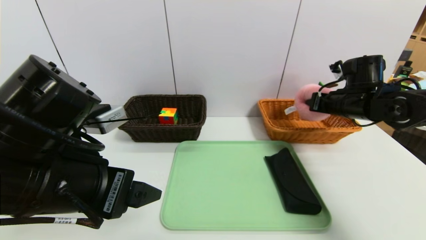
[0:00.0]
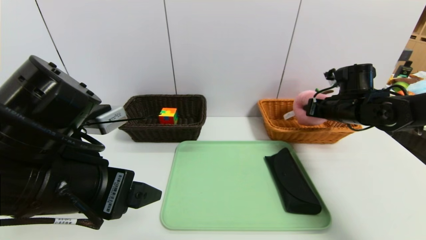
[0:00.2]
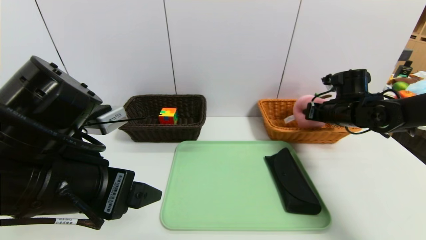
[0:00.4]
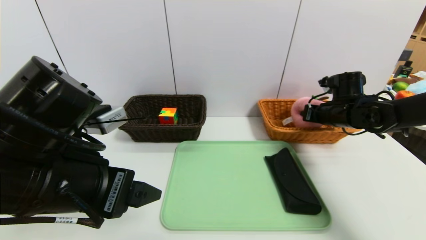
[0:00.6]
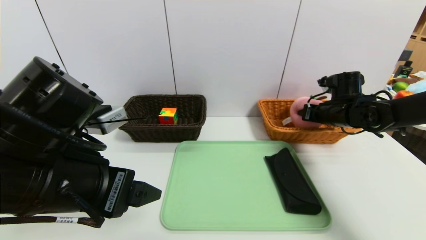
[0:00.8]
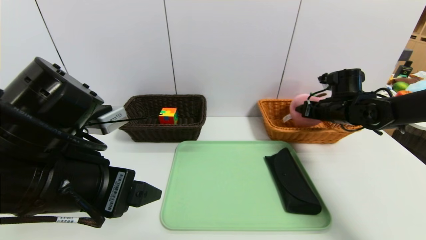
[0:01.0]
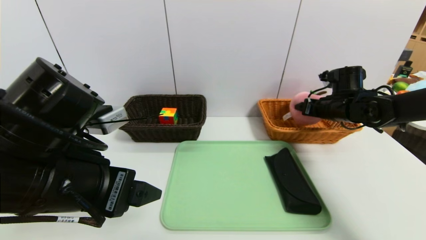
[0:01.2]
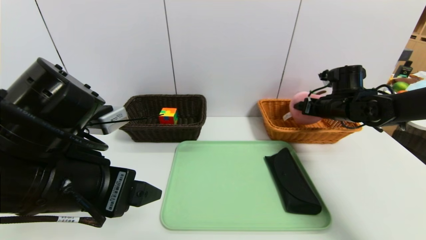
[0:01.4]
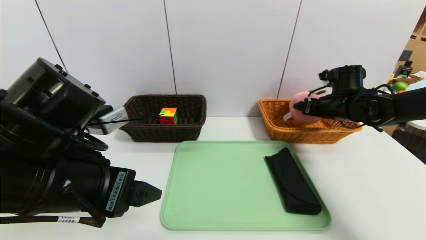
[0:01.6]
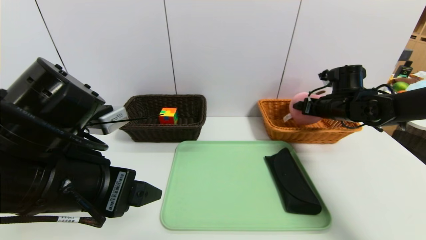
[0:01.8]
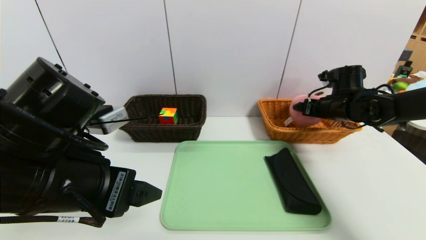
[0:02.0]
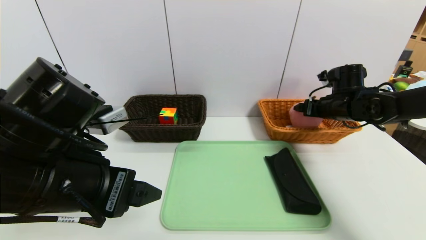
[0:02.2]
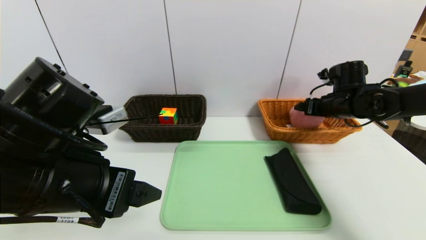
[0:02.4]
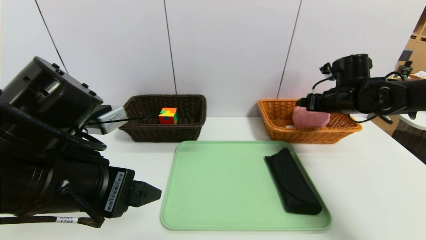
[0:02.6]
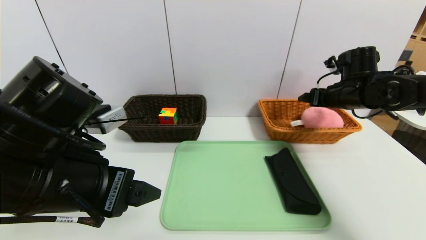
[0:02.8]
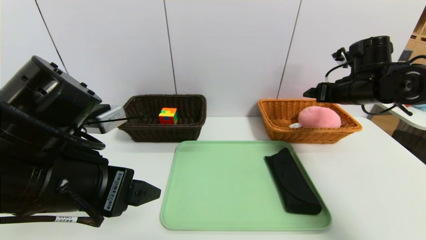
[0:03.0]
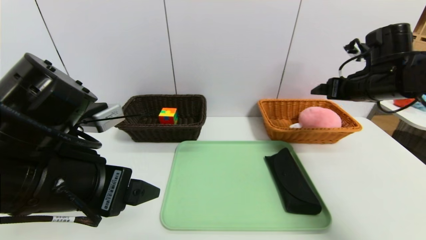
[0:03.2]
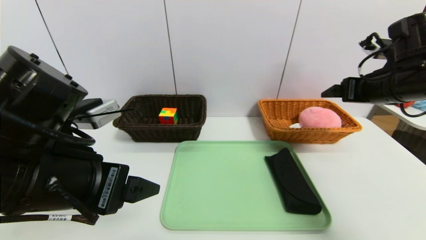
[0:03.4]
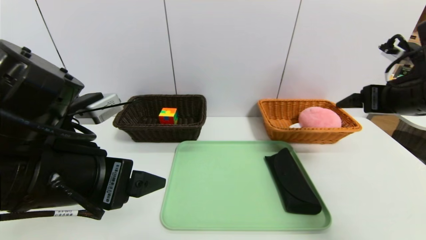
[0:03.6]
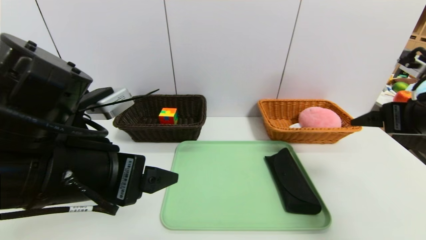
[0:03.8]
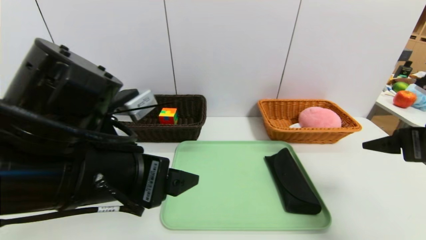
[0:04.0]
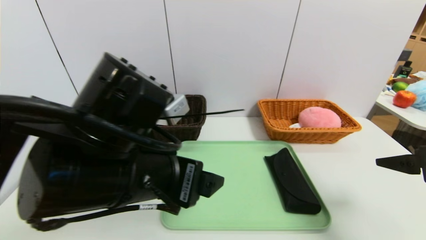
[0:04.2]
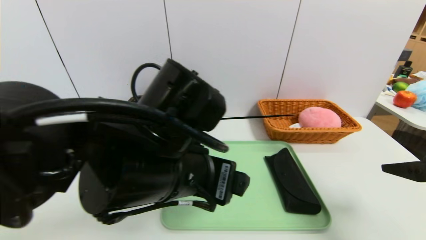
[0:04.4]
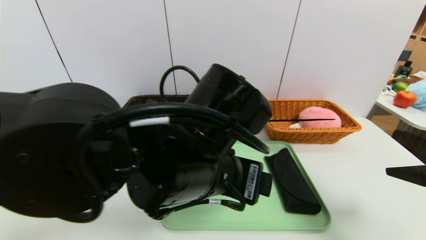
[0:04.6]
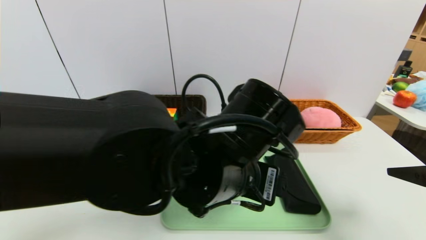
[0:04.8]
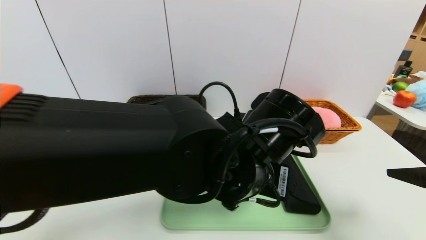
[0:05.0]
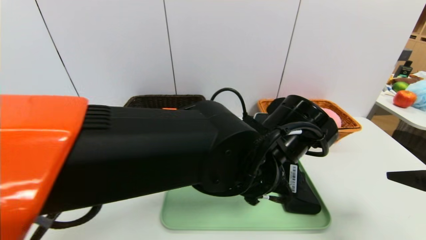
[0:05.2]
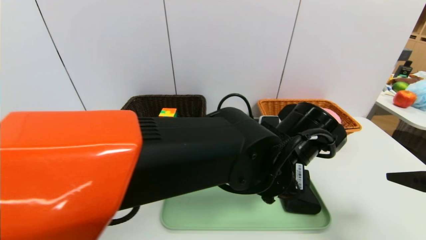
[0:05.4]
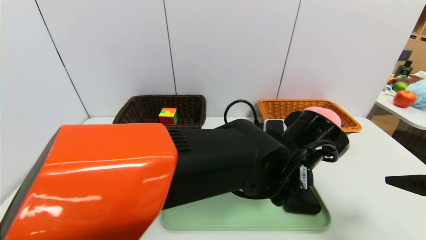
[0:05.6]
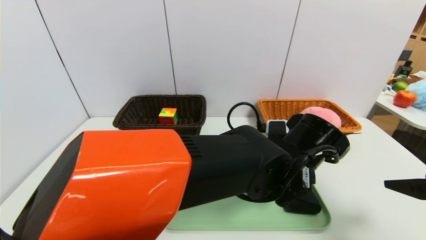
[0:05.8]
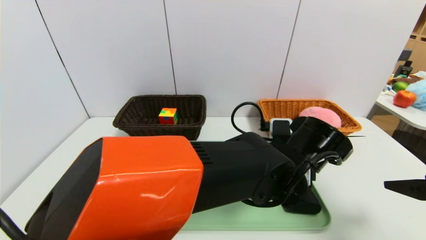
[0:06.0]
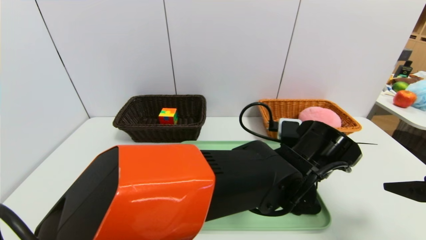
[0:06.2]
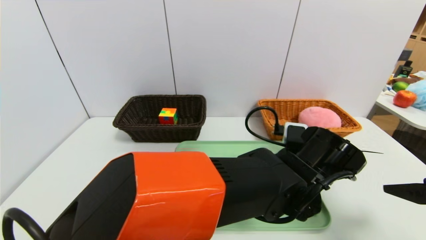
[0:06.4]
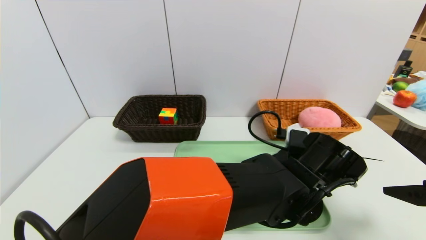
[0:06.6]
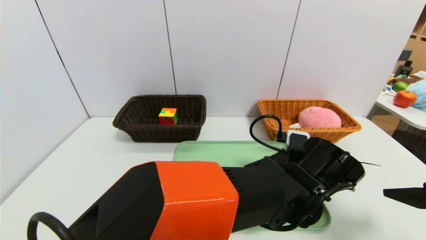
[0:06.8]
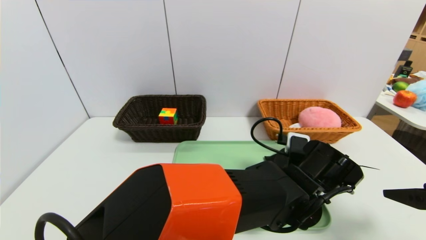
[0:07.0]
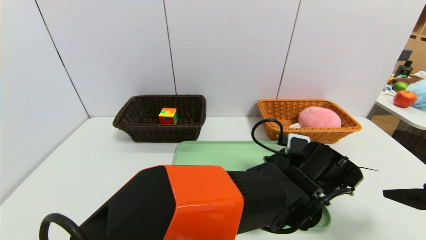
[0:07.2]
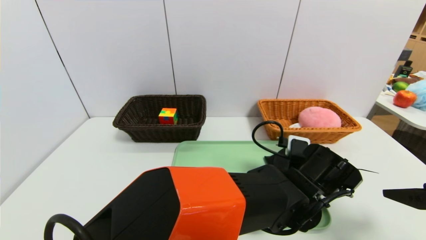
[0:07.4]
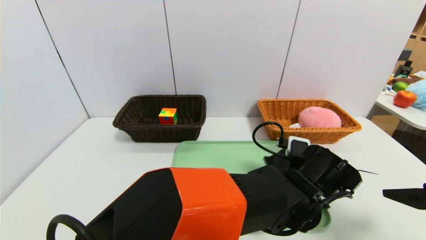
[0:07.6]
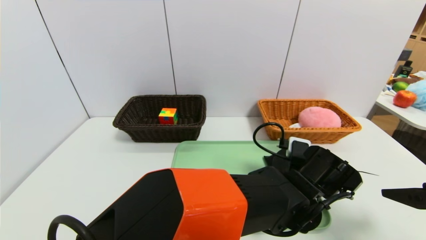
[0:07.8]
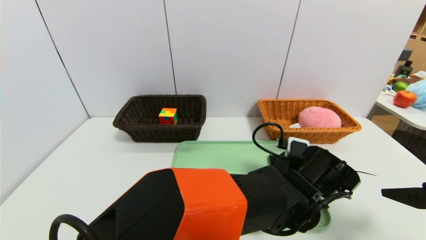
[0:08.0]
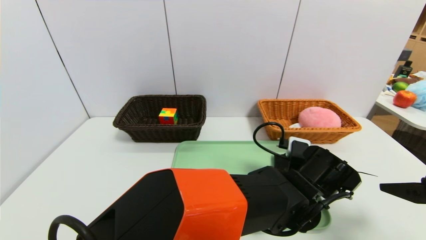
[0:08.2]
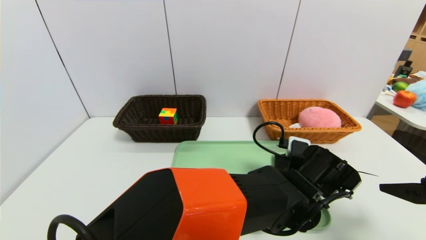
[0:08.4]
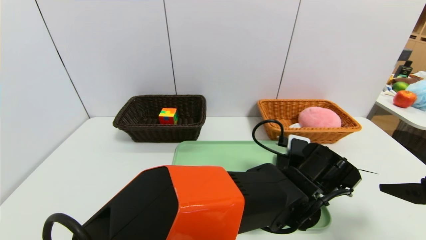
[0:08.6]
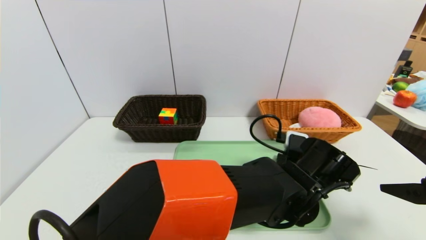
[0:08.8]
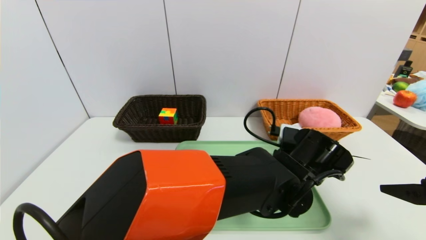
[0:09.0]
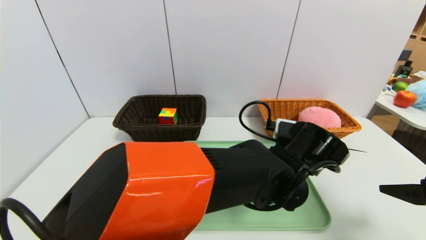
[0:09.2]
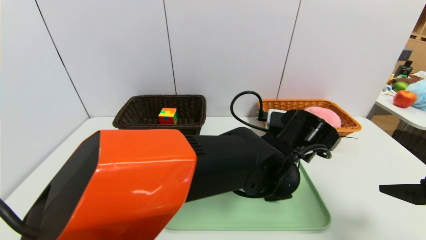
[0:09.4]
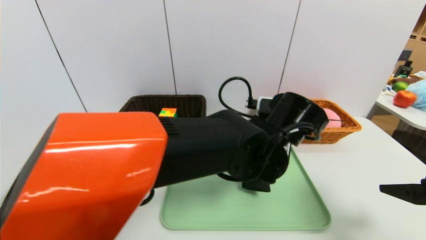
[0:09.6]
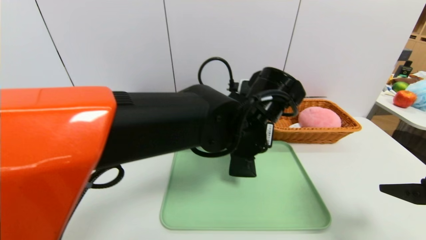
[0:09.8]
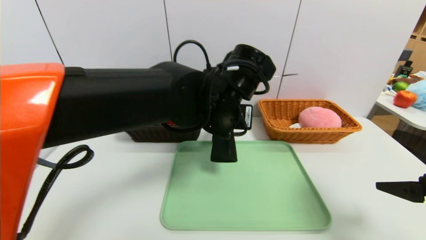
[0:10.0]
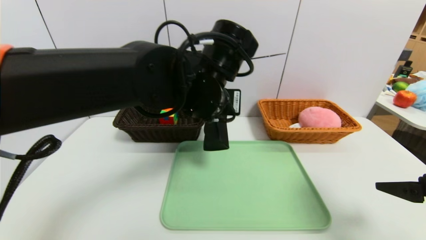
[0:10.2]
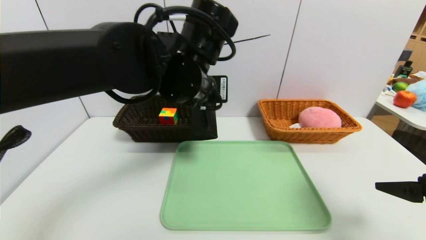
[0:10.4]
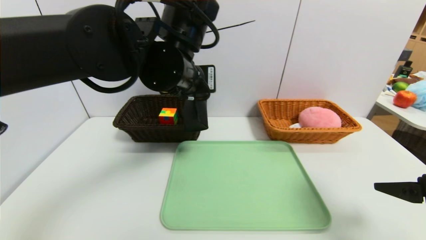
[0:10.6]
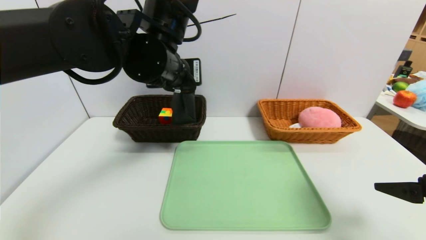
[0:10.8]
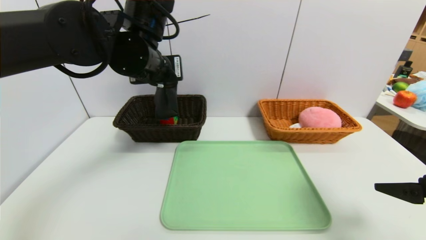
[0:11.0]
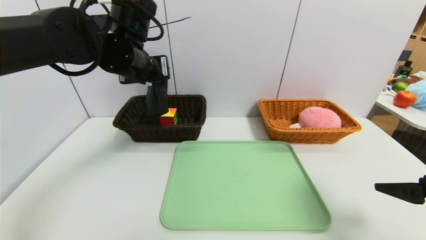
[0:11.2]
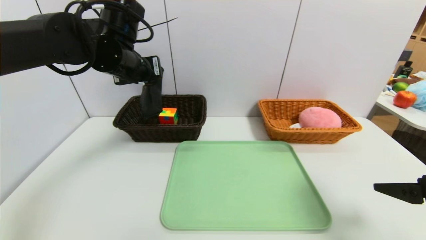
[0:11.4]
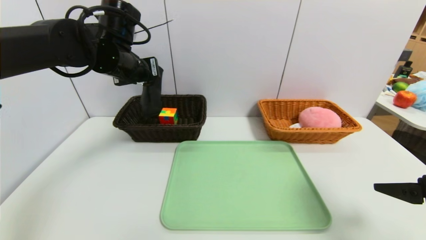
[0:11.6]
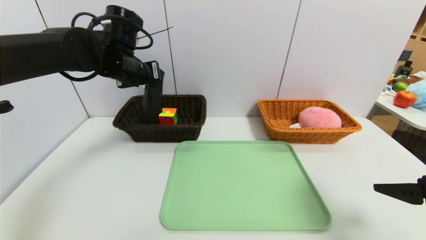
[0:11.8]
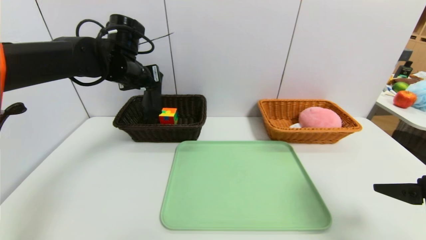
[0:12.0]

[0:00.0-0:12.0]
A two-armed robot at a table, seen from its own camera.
Task of the whole recording: place the food in the right basket with the right gripper, and place the non food items in the left basket with the left gripper.
Step, 0:00.0 to 0:02.8: Place the peach doll in the center of the table.
0:00.0 to 0:01.6: The right gripper opens its fingers.
0:01.6 to 0:03.0: The right gripper heads upward, covering approximately 5 cm.
0:03.0 to 0:04.4: The right gripper travels backward by approximately 25 cm; the left gripper goes about 10 cm to the right.
0:04.4 to 0:06.0: The left gripper shifts some 20 cm to the right and downward.
0:06.0 to 0:07.6: The left gripper is displaced downward by approximately 5 cm.
0:07.6 to 0:09.0: The left gripper closes up.
0:09.0 to 0:10.4: The left gripper moves to the left and upward, roughly 25 cm.
0:10.4 to 0:12.0: The left gripper moves to the left and forward, some 20 cm.

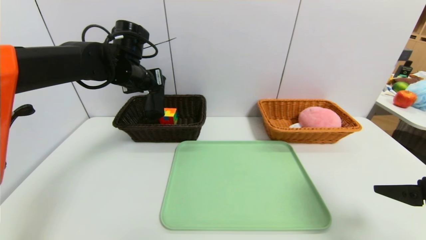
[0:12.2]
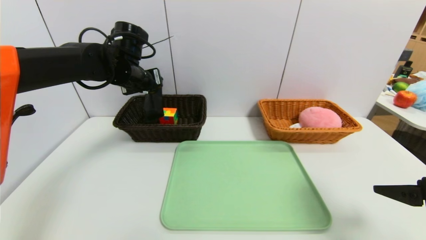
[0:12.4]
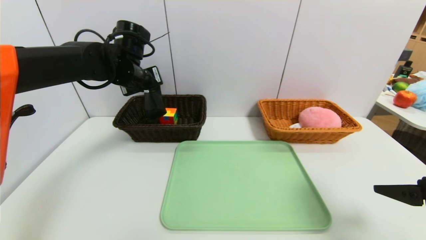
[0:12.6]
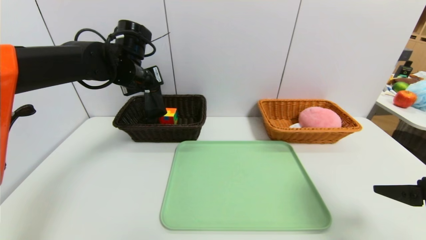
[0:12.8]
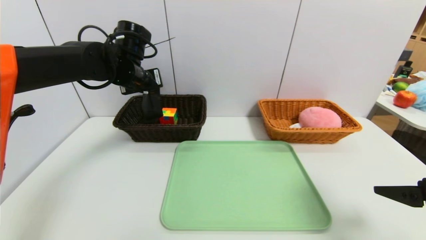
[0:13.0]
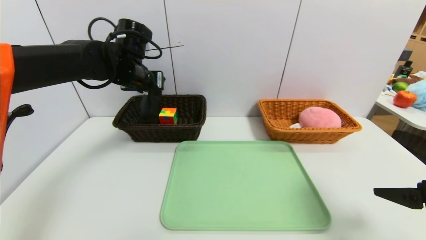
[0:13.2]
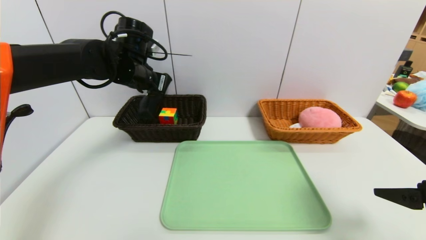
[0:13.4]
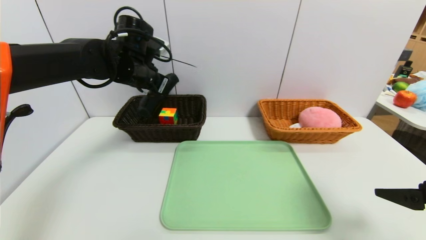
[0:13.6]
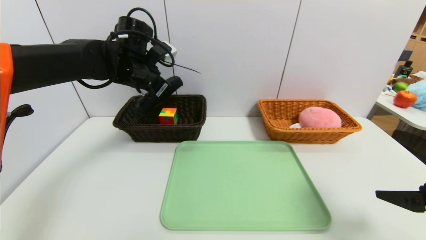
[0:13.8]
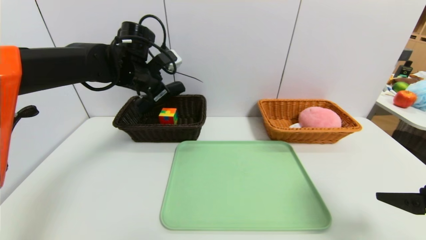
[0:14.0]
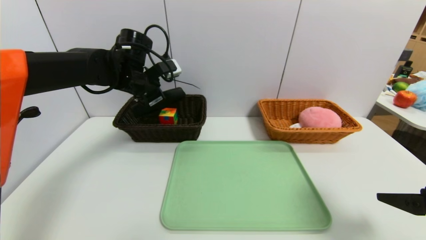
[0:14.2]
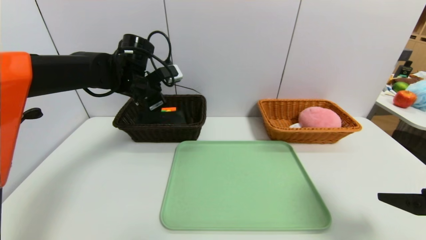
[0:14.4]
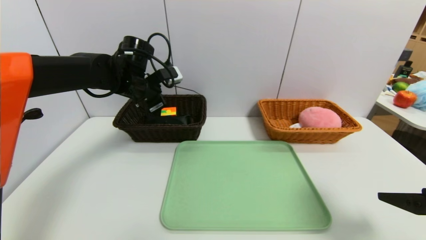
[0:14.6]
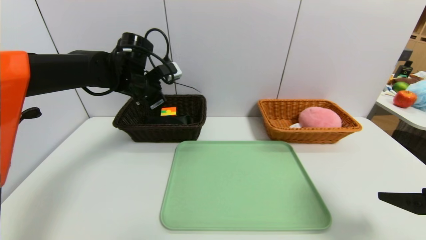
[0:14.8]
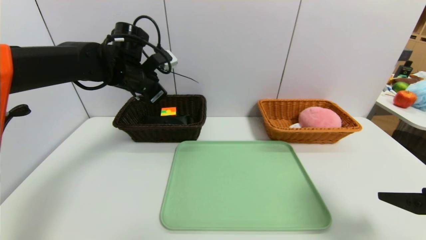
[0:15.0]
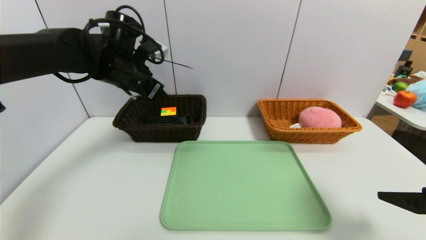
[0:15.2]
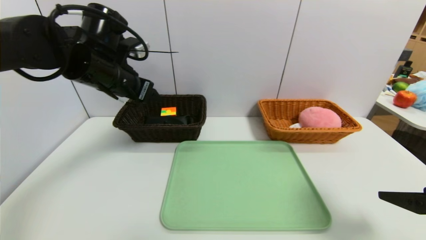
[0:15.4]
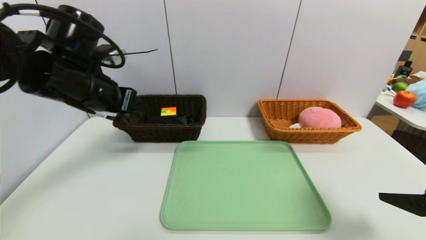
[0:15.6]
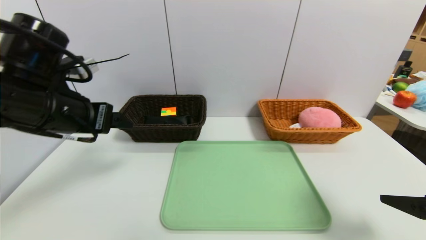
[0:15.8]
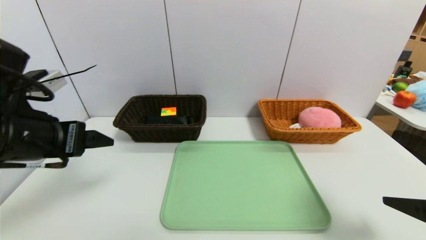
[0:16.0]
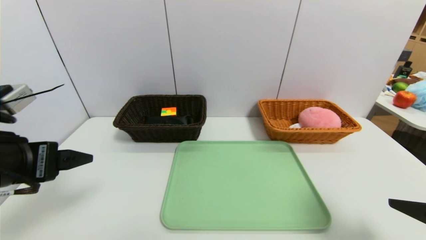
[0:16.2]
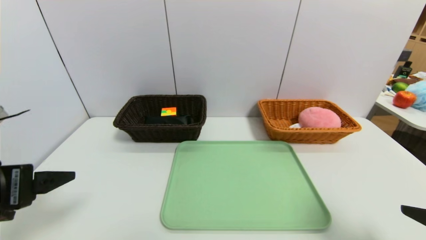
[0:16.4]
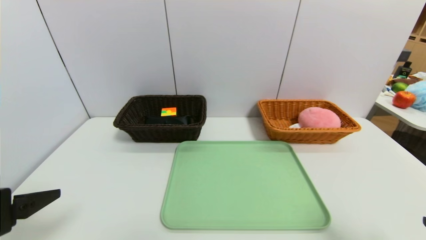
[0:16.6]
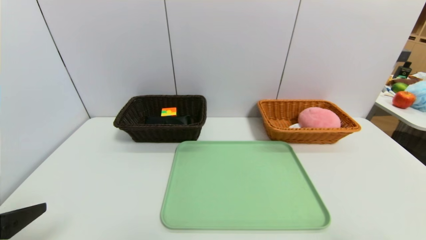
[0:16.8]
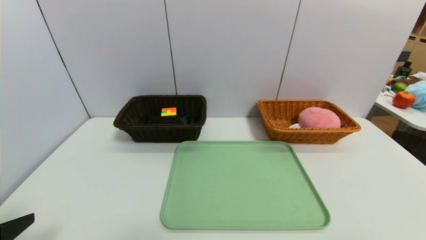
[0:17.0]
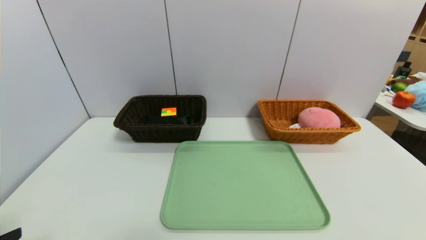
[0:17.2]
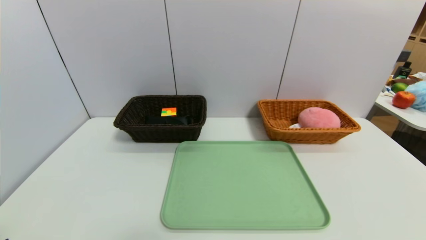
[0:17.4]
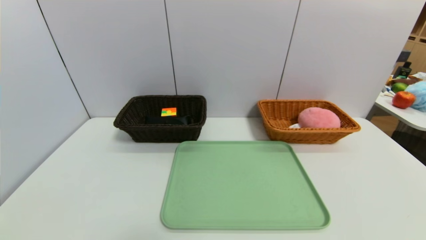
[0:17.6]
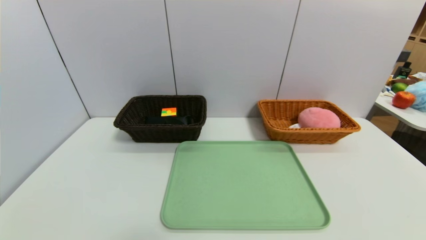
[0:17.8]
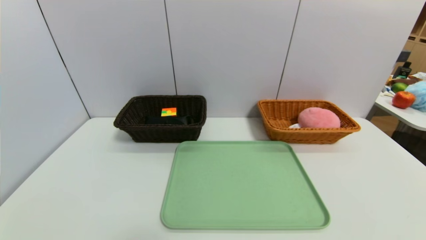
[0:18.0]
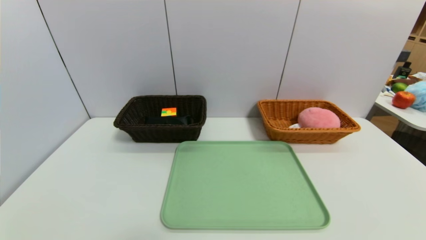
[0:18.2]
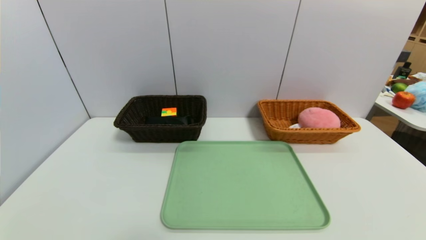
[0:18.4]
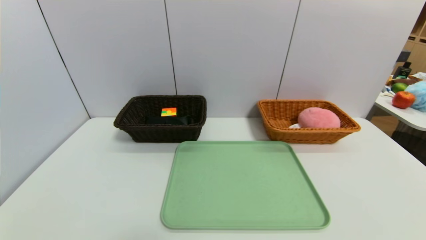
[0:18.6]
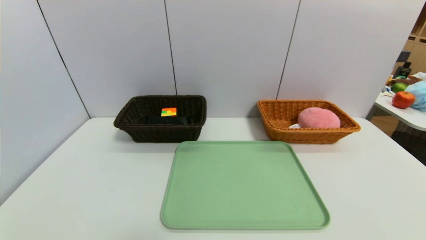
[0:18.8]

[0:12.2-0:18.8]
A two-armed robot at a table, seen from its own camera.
Task of the whole recording: place the food in the right basket with the right gripper, and place the non food items in the left basket with the left gripper.
Step, 0:12.2 to 0:15.0: Grasp the glasses case and put it in the left basket.
0:13.8 to 0:15.4: The left gripper is displaced backward by about 5 cm, and opens.
0:15.4 to 0:17.2: The right gripper goes approximately 15 cm backward; the left gripper travels backward by about 30 cm.
